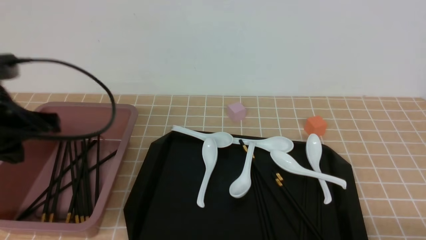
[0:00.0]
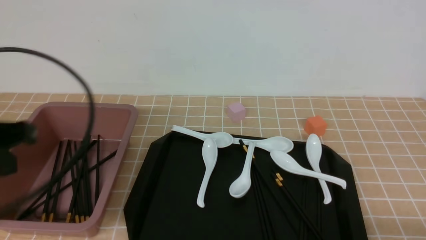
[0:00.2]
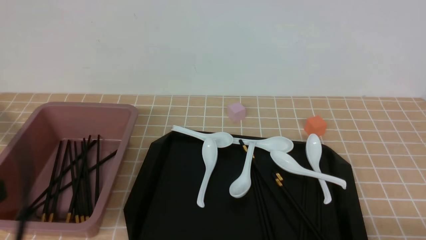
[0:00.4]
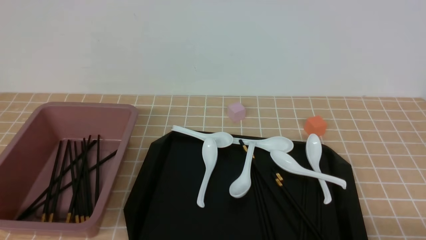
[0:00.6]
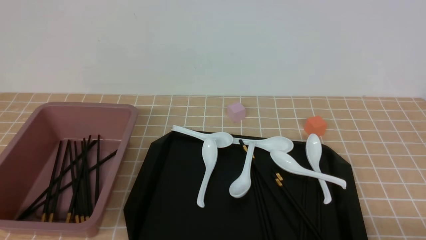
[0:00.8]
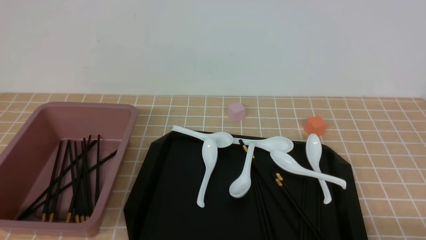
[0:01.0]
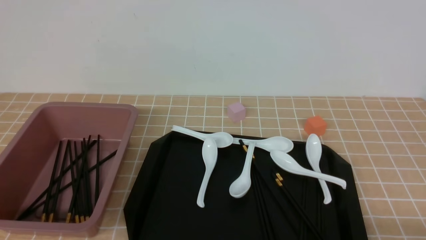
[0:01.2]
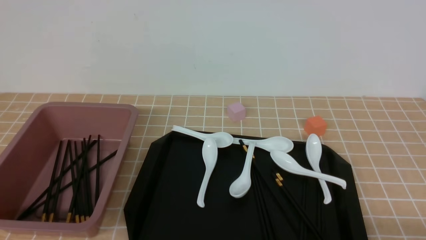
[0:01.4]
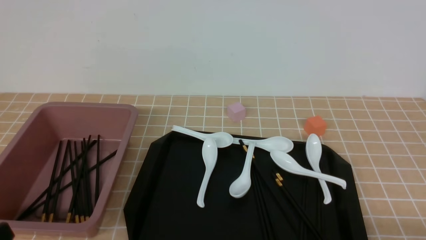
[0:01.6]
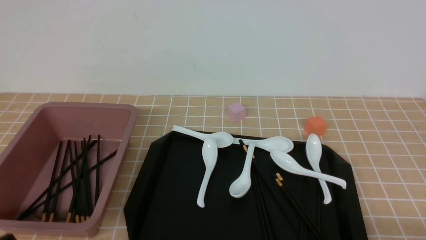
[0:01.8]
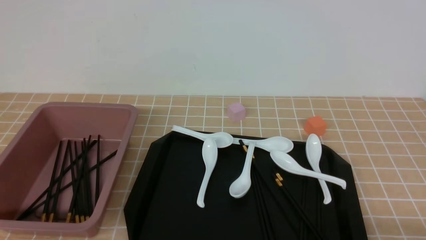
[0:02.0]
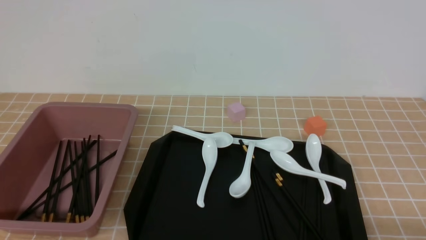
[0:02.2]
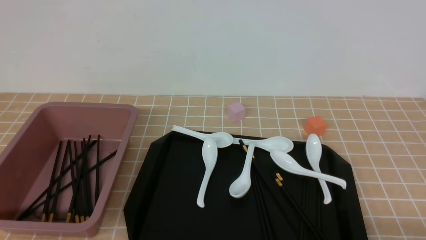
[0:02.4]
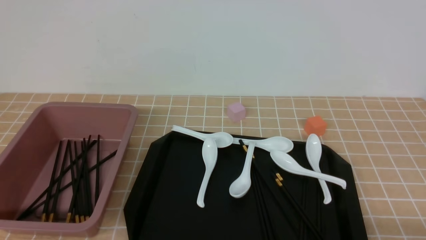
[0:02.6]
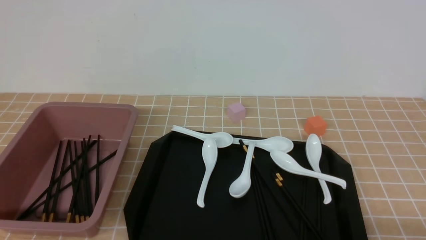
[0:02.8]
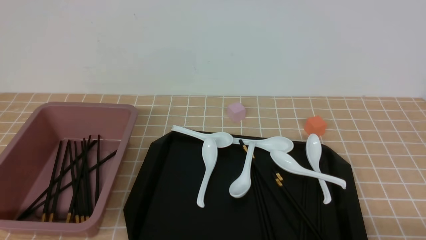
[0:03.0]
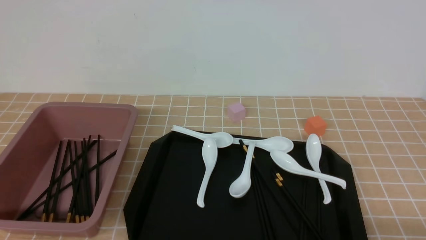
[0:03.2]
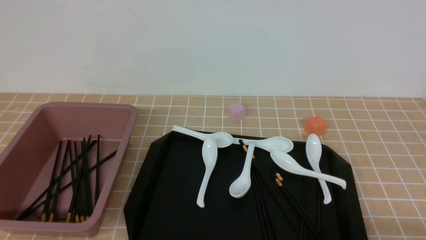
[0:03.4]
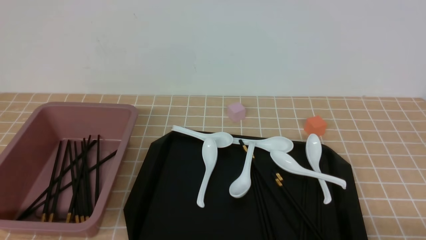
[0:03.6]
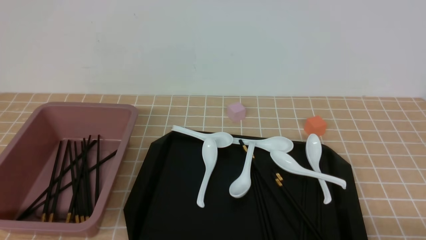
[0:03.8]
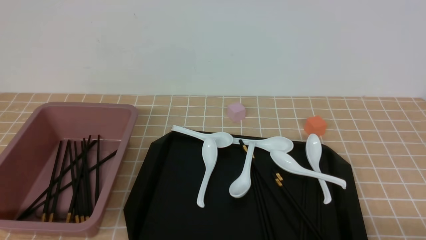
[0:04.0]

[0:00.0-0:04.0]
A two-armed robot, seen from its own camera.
0:00.0 to 0:01.4: The left gripper is displaced backward by some 25 cm.
0:02.6 to 0:04.0: Both grippers stay about where they are.
